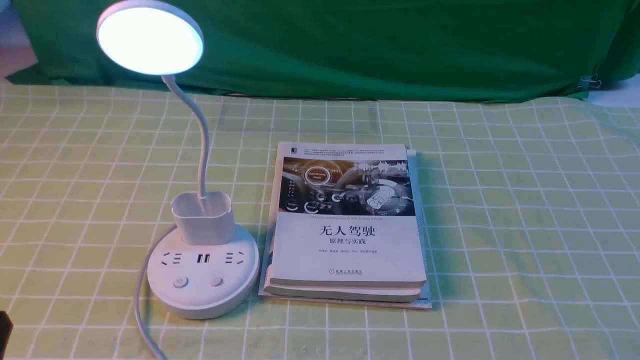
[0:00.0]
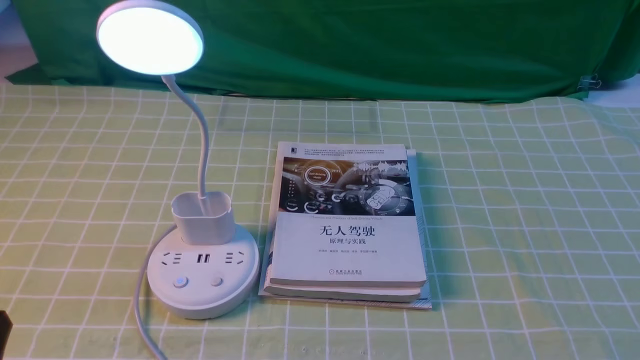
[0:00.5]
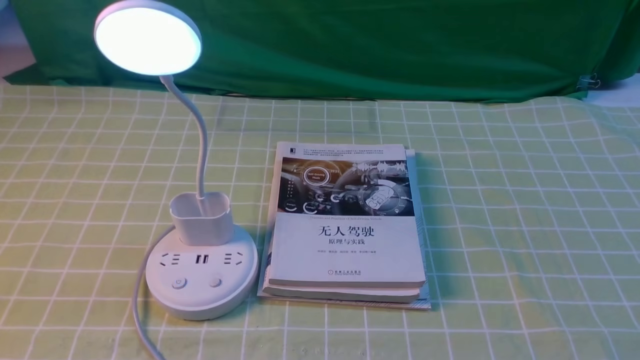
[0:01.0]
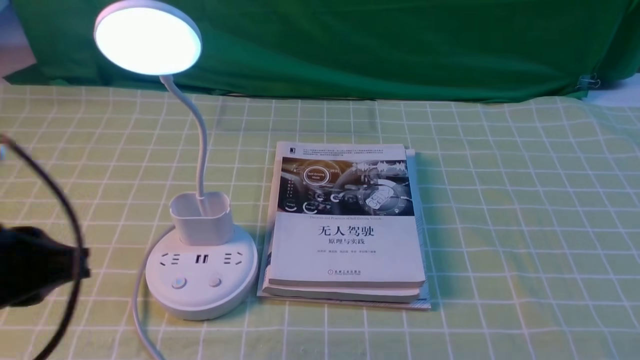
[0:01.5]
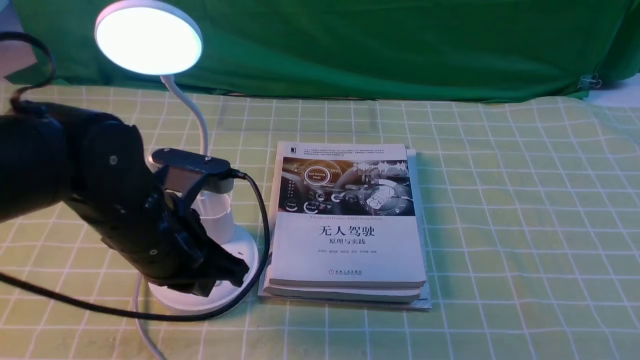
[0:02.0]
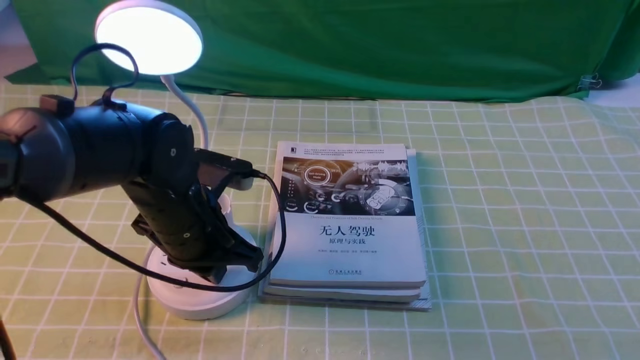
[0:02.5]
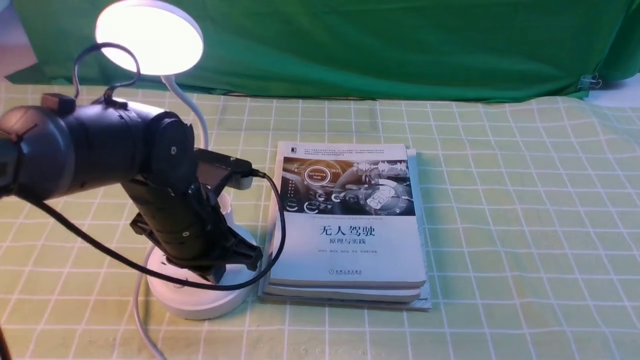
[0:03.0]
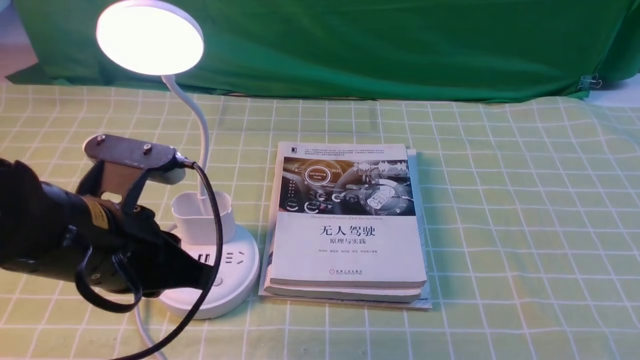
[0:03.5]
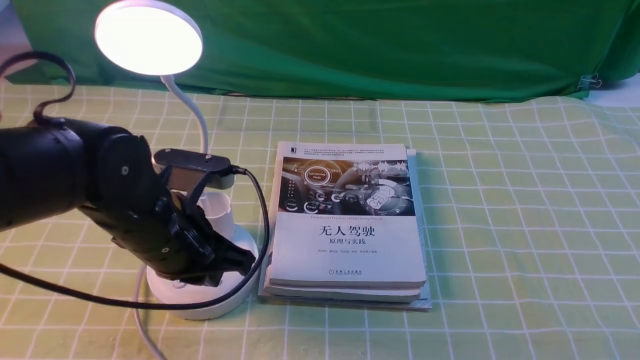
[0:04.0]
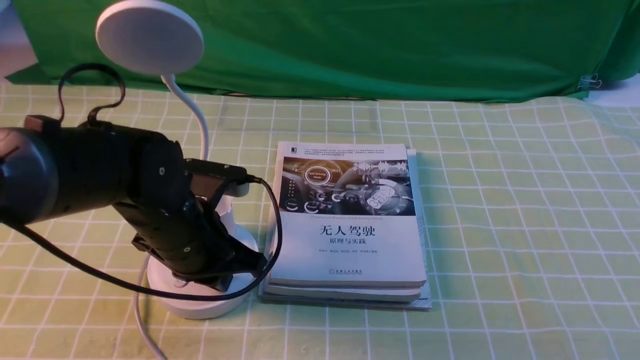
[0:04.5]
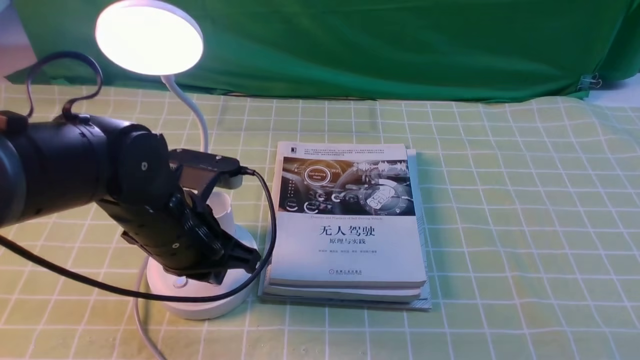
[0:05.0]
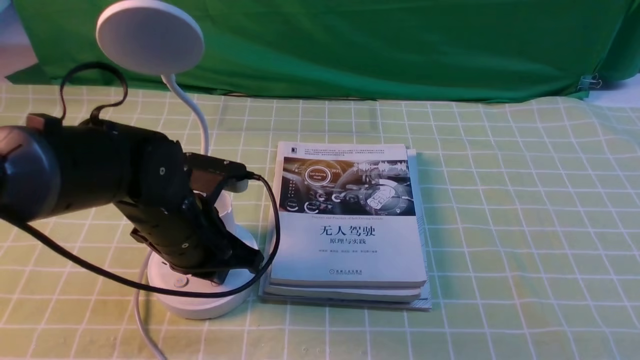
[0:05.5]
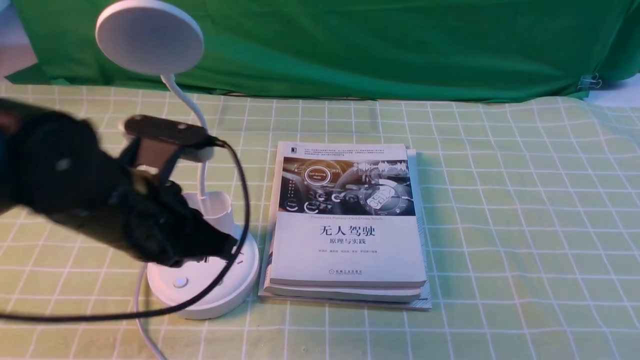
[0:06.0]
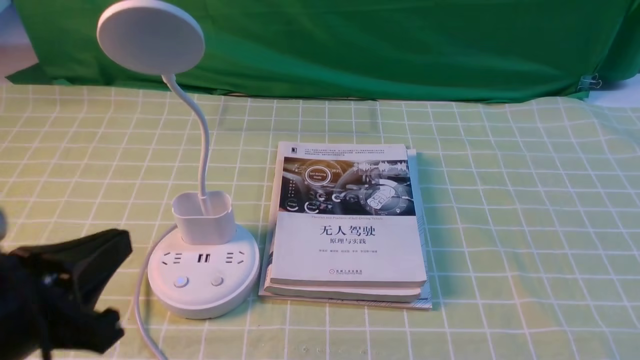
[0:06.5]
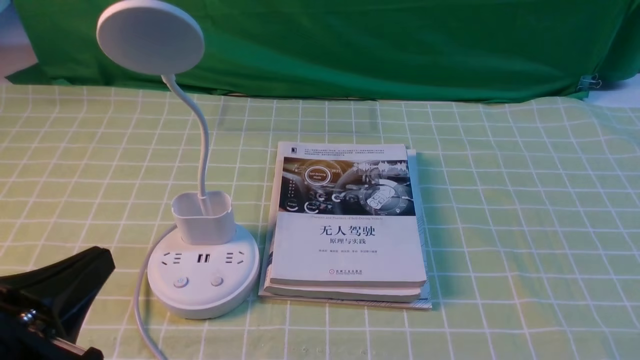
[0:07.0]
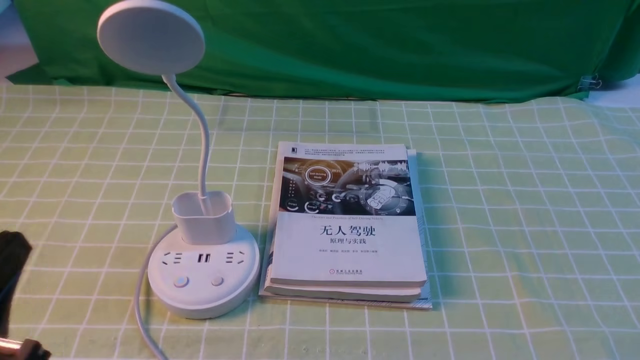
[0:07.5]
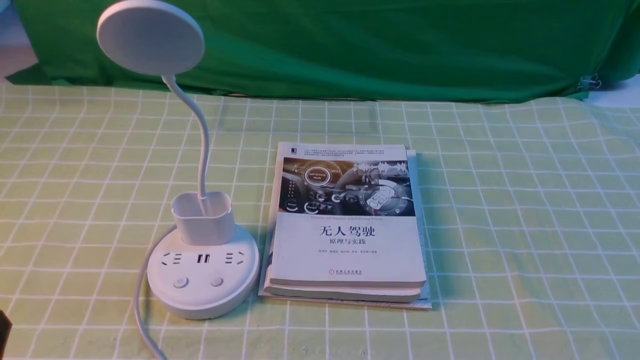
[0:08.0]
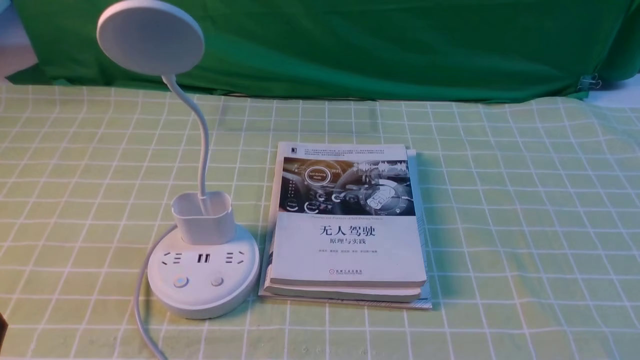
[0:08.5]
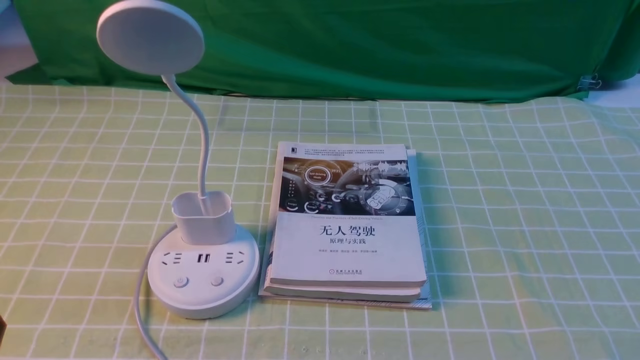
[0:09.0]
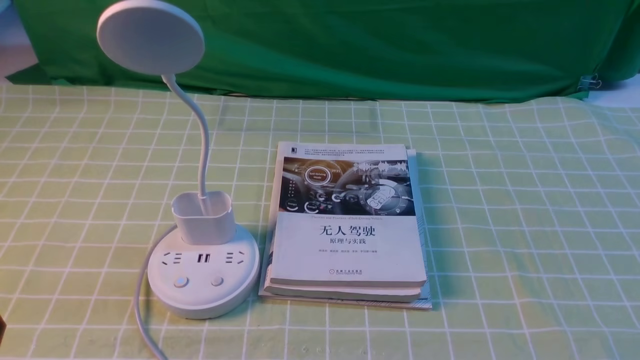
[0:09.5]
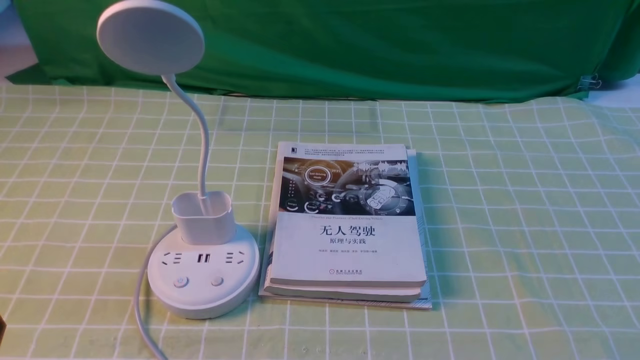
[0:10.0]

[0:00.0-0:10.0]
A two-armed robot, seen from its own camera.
Task of the whole recording: turn off the desk lamp on the green coffee tablecloth by hand.
Step, 0.0 to 5.5 s: use the left arm to press the button switch on the lamp holder.
4.0 to 6.0 s: The grippers make only small movements.
6.0 to 8.0 s: The left gripper heads backward and to the left, covering roughly 20 cm. The right gripper opens.

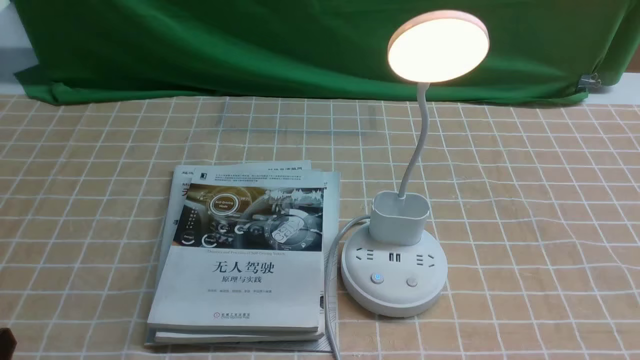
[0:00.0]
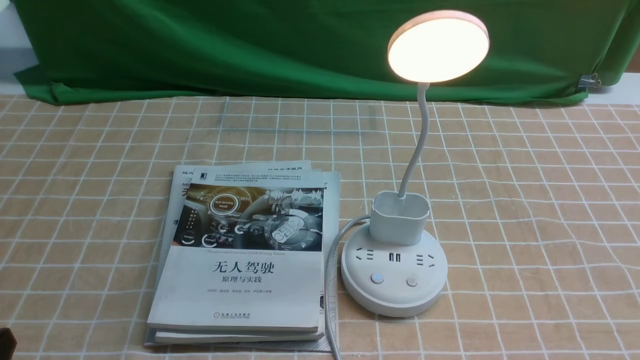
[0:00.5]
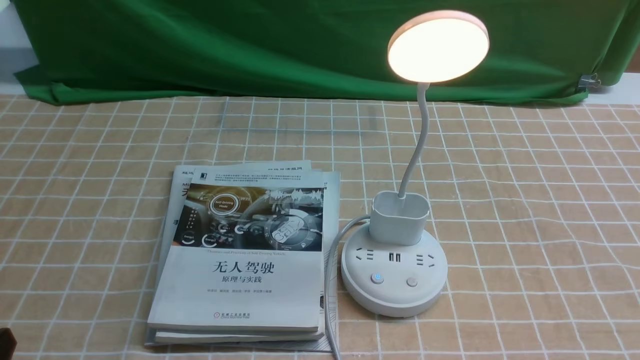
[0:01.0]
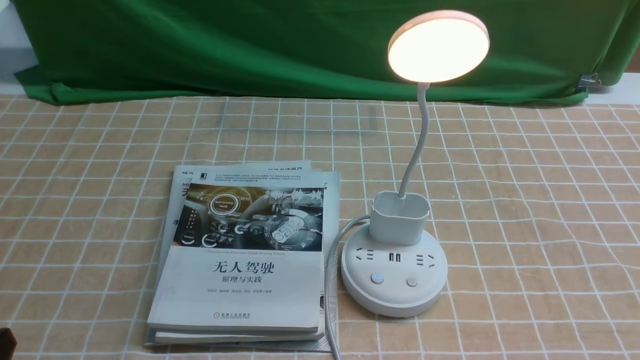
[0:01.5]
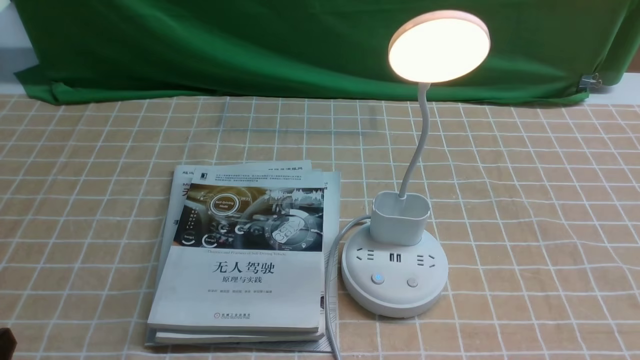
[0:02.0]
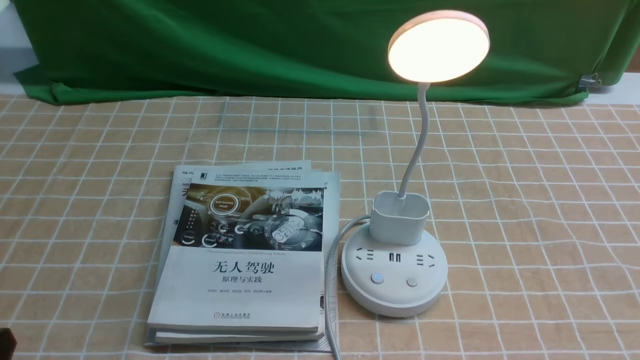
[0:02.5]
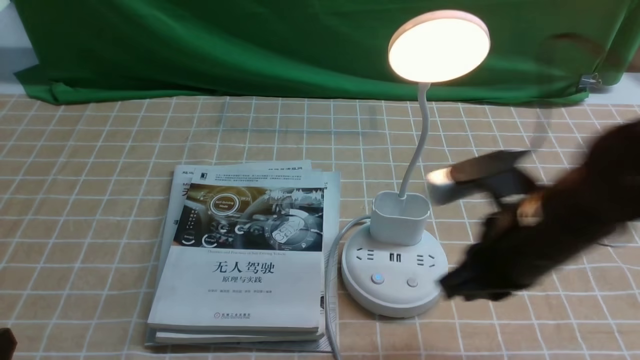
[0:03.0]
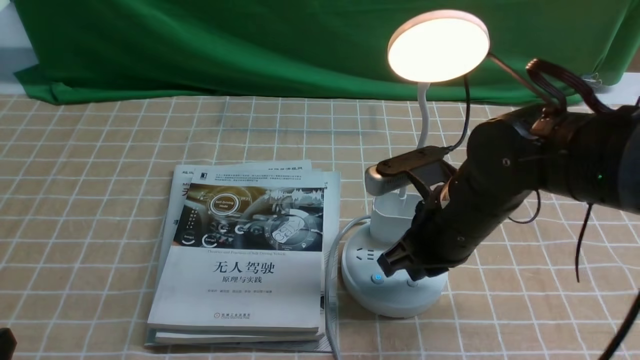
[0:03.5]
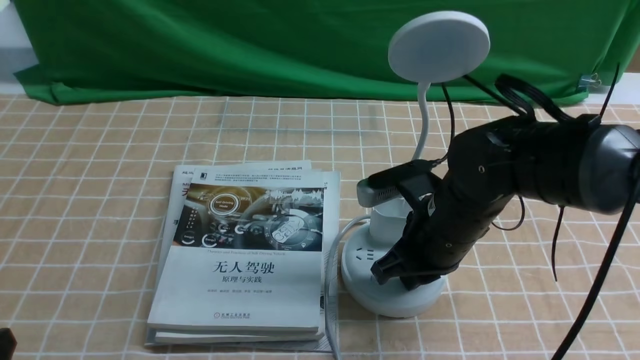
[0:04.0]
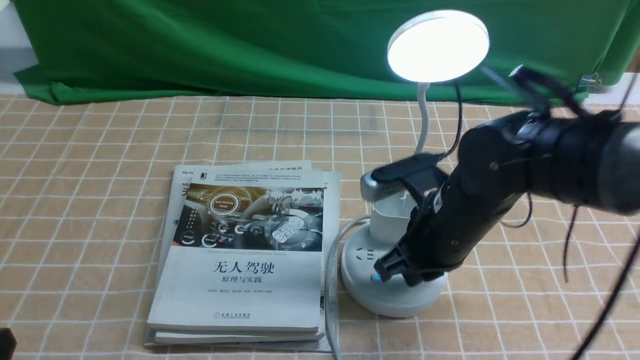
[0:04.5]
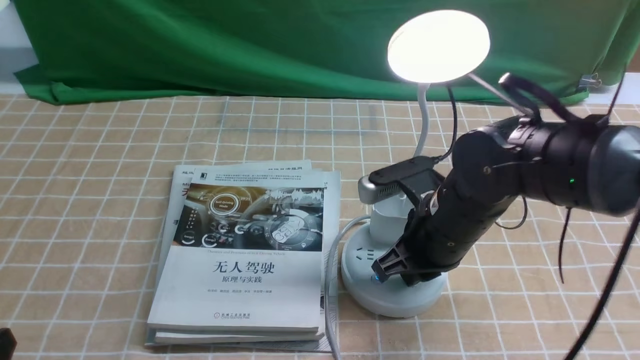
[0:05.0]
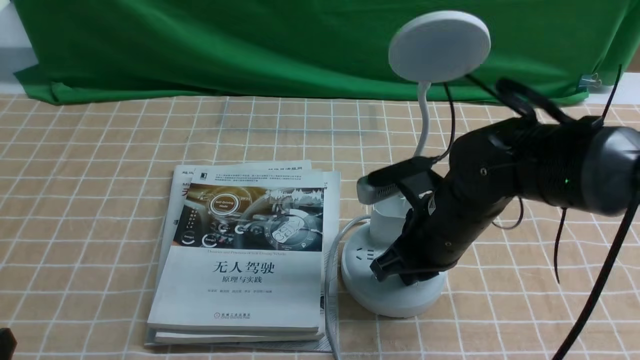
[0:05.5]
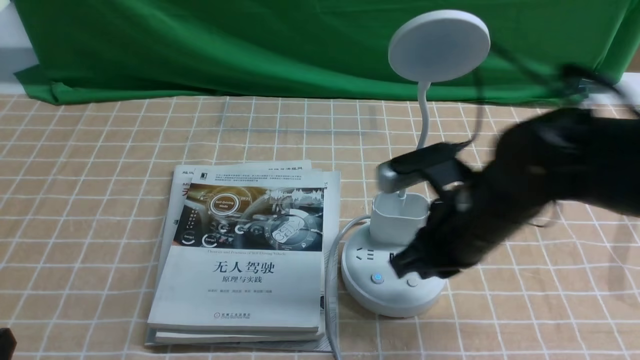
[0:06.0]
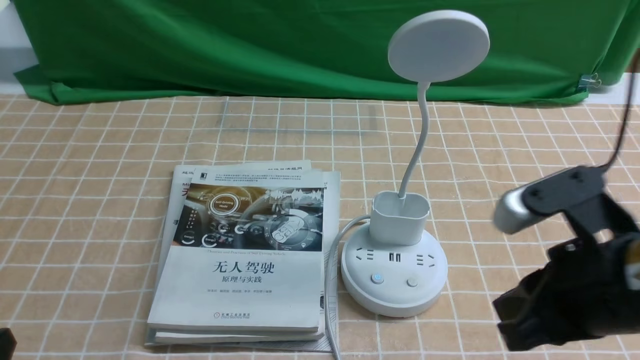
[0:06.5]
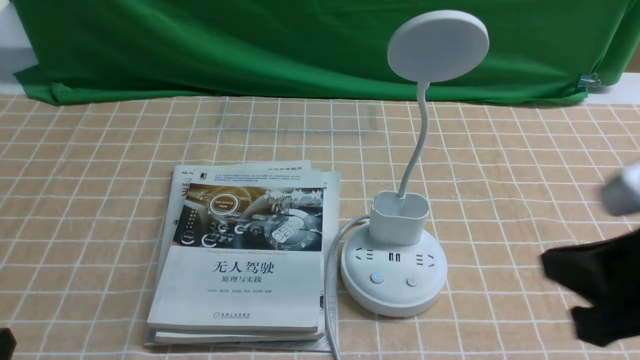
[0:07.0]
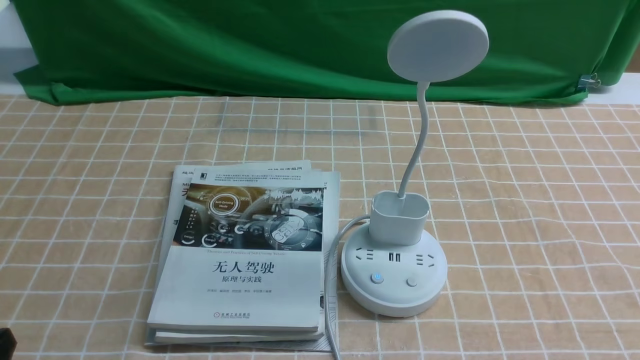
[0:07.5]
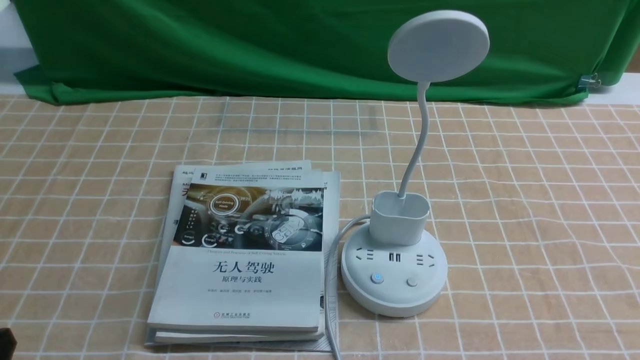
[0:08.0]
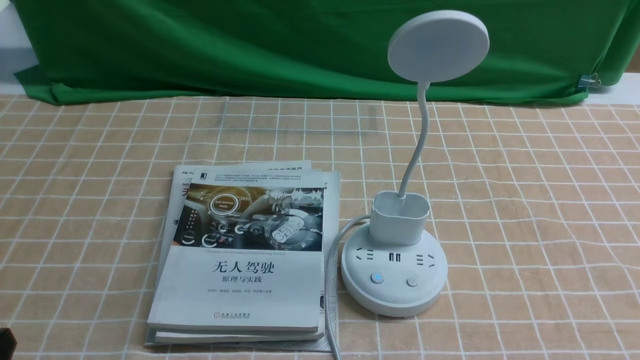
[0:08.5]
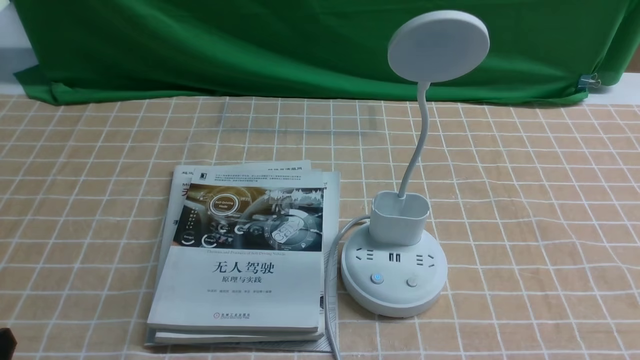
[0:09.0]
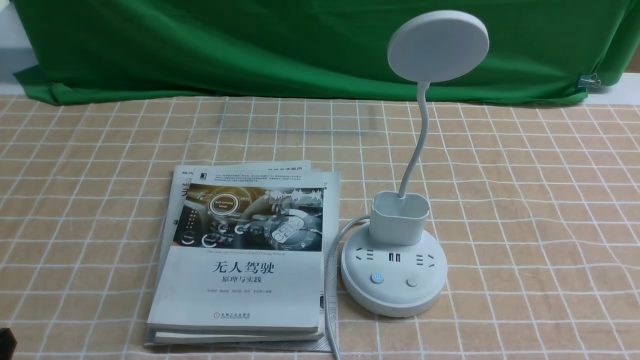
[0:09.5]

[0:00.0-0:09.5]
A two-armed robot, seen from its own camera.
Task of the whole recording: turn off the desk lamp on the light coffee tablecloth by hand.
Step, 0.0 to 5.5 s: use the right arm to press the button switch on the lamp holder.
2.0 to 4.0 s: The right gripper is displaced forward and to the left by approximately 30 cm, and closes its fingers.
4.0 to 5.5 s: Both grippers stay about where they are.
5.5 to 7.5 s: The right gripper heads backward and to the right, covering about 30 cm.

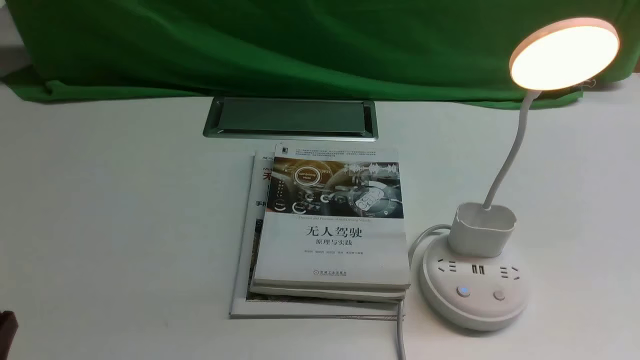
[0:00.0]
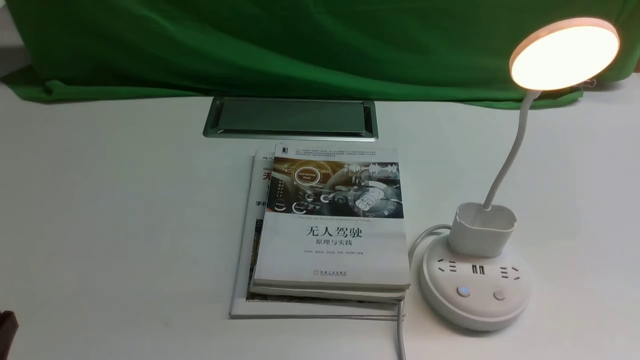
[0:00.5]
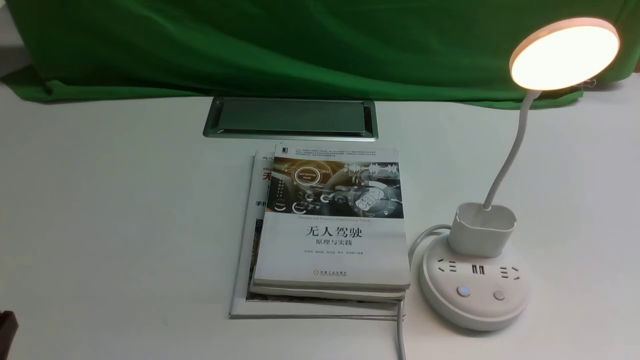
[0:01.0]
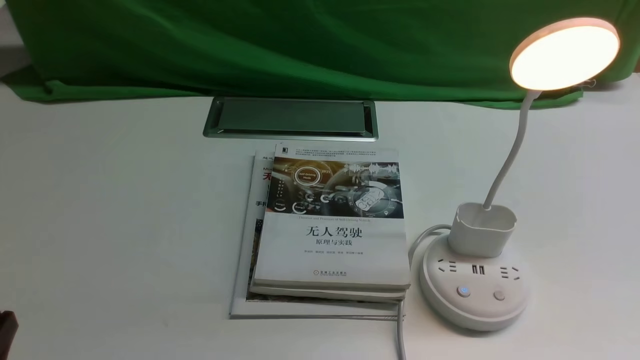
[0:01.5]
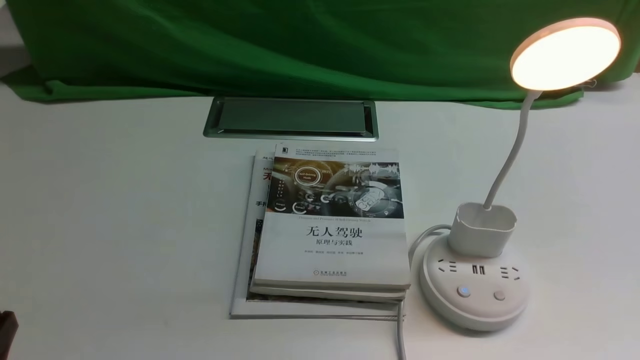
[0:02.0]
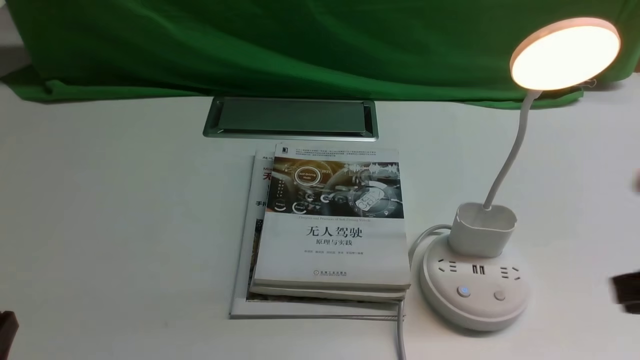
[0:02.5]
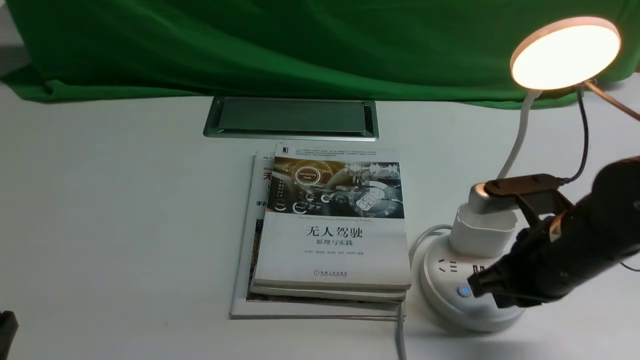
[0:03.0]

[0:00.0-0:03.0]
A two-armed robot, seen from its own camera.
Task of the whole recording: turn off the desk lamp on the white desktop by hand.
1.5 to 3.0 s: The right gripper heads forward and to the left, covering approximately 20 cm.
